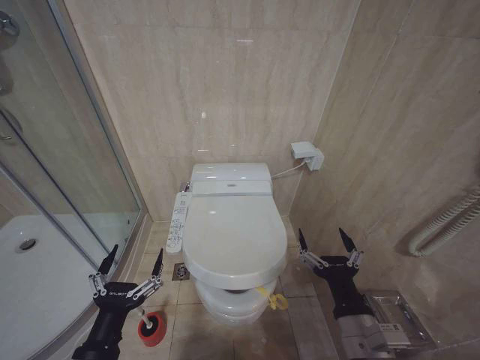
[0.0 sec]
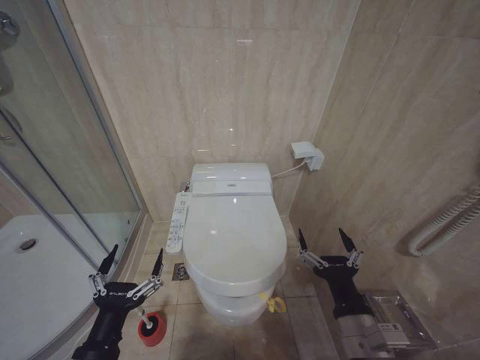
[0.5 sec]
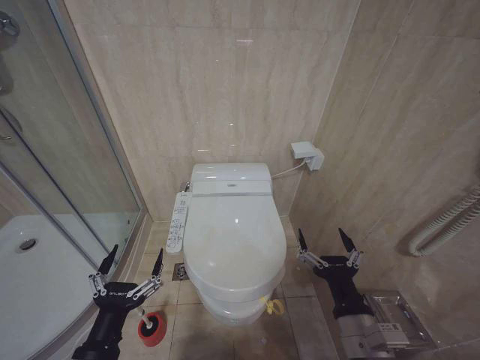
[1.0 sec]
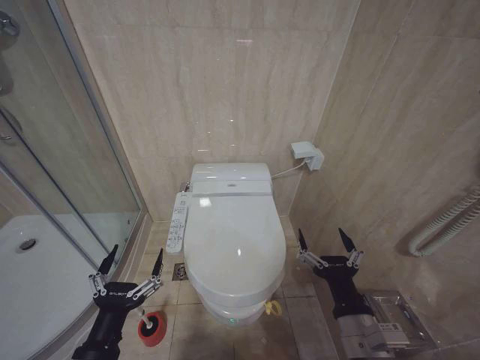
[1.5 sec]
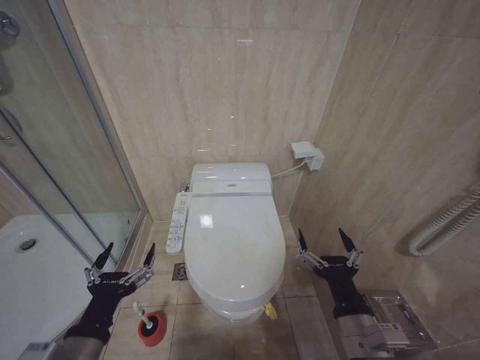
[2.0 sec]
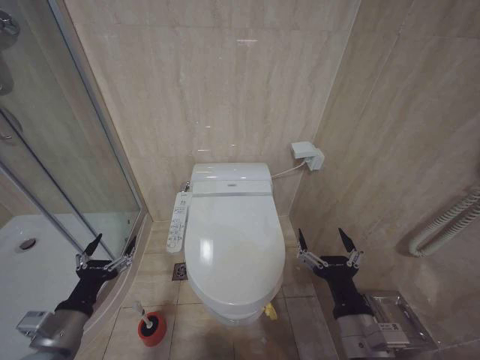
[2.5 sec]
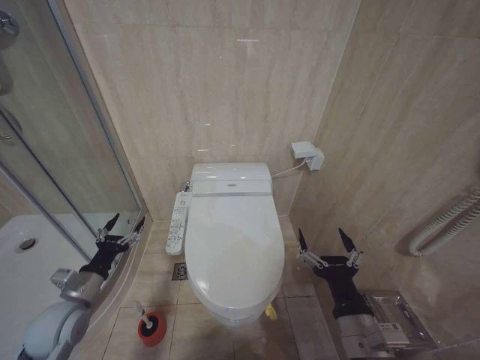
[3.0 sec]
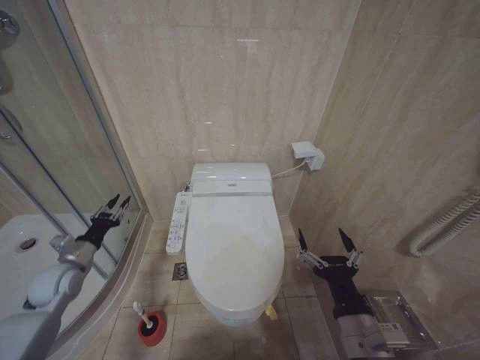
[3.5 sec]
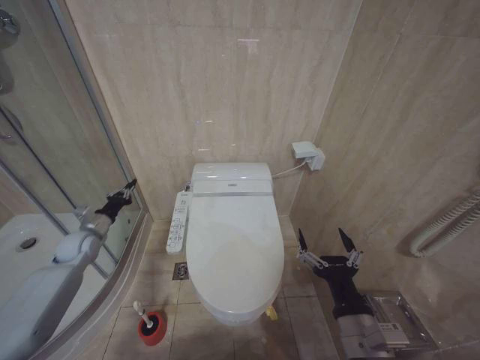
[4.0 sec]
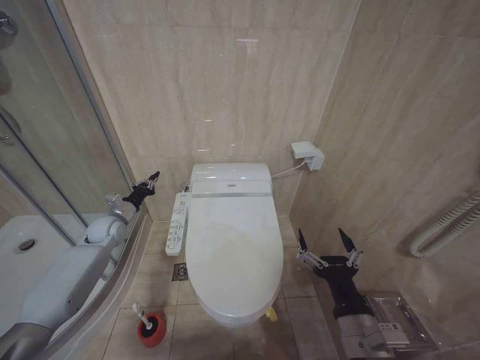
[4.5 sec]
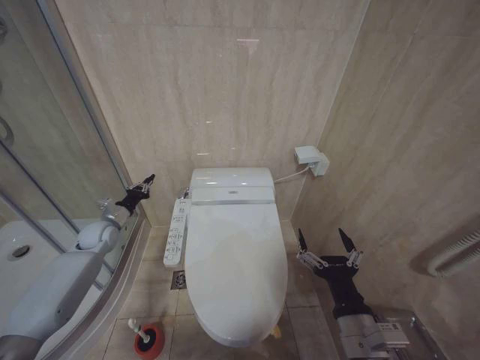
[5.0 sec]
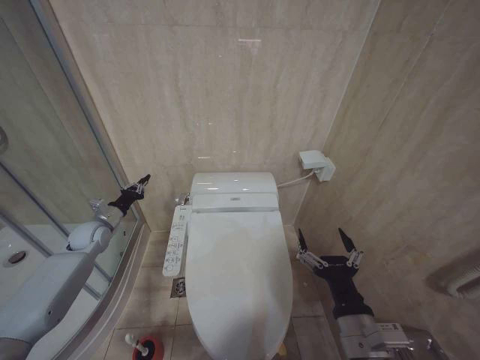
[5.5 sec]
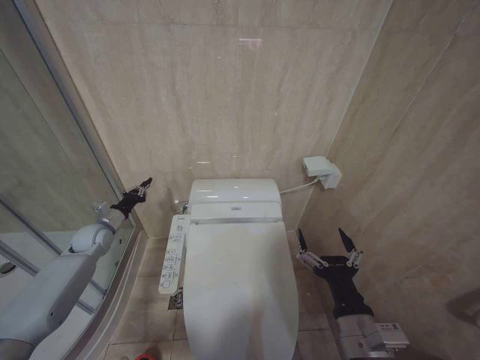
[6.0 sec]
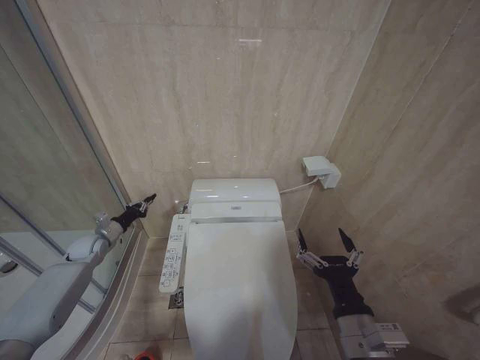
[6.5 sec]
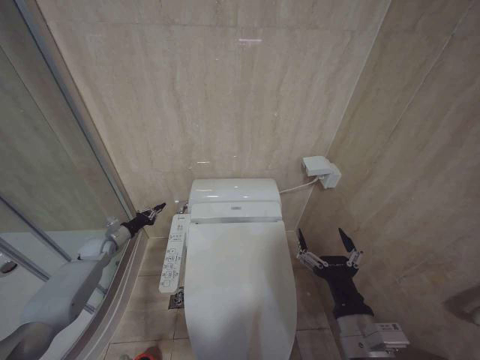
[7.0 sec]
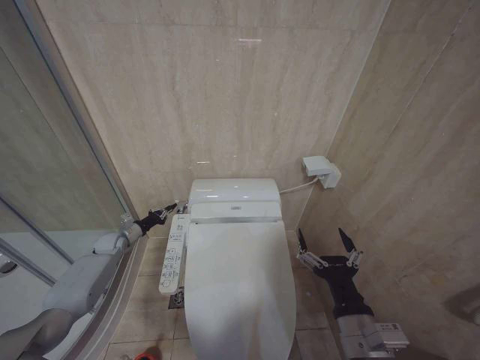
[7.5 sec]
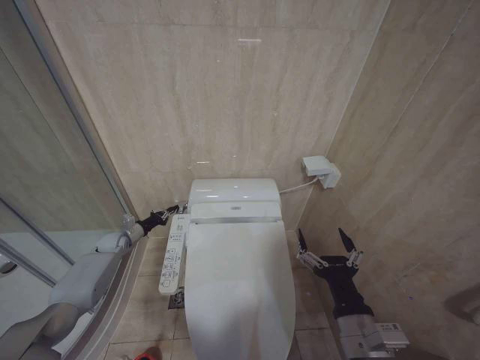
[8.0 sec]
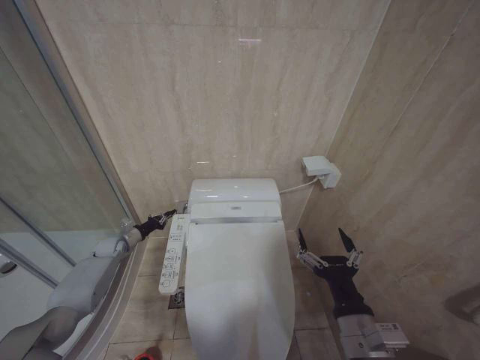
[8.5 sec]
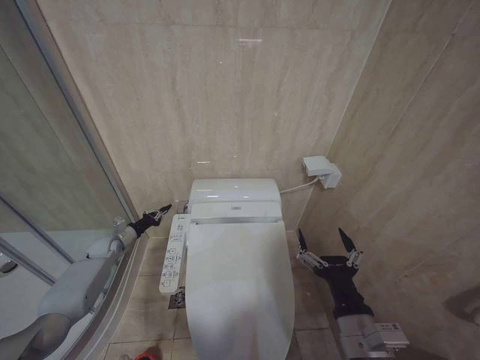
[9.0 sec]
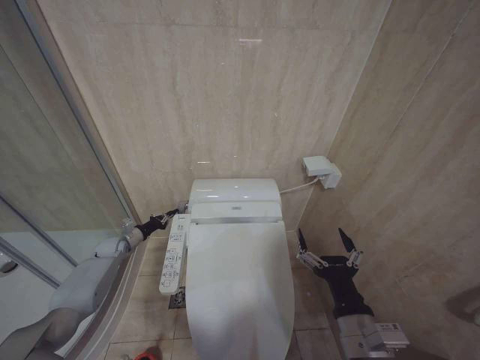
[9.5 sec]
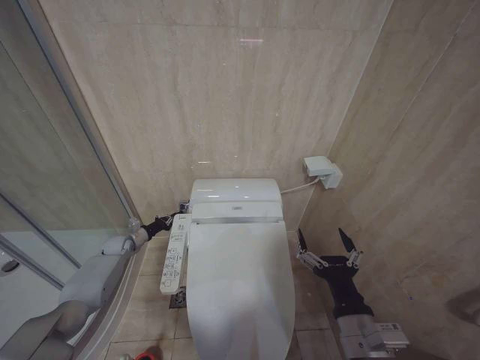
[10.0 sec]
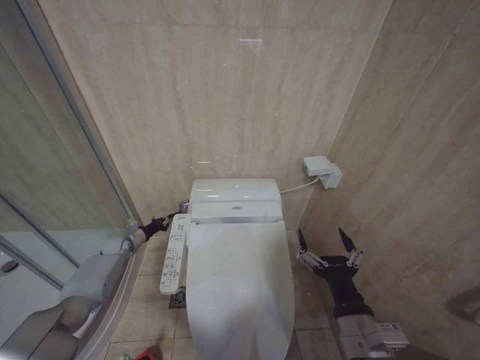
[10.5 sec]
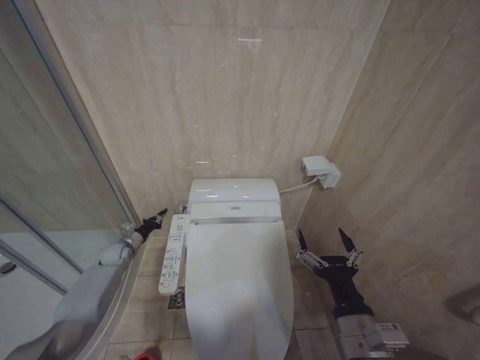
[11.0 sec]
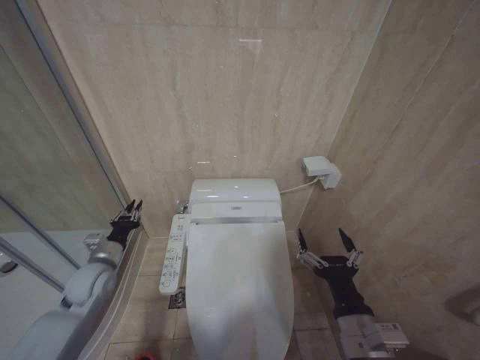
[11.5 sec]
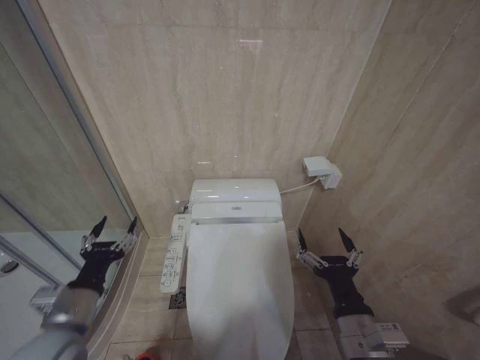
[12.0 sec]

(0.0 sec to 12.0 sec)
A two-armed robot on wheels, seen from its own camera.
Task of the whole recording: Open the toilet lid, clean the toilet bowl with a toilet brush, close the toilet lid, and flush.
0.0 sec - 2.0 sec: The grippers stay close to where they were, moving slightly.
2.0 sec - 4.0 sec: The left gripper moves forward and to the left, about 40 cm, and closes.
6.0 sec - 8.0 sec: The left gripper travels downward by some 10 cm.
8.0 sec - 10.0 sec: There are only small adjustments of the grippers.
10.0 sec - 12.0 sec: The left gripper moves backward and upward, approximately 40 cm, and opens.

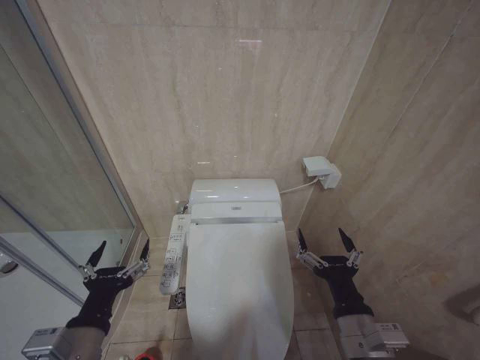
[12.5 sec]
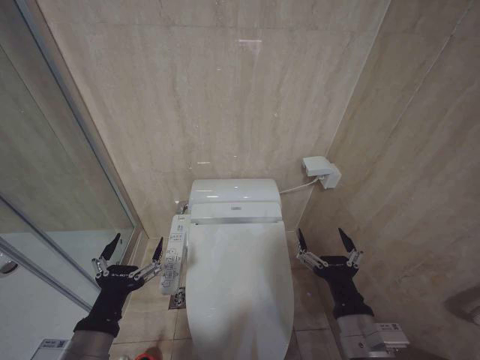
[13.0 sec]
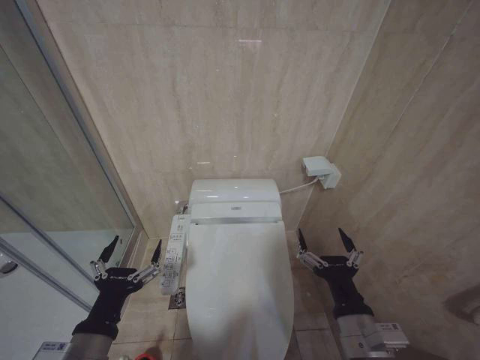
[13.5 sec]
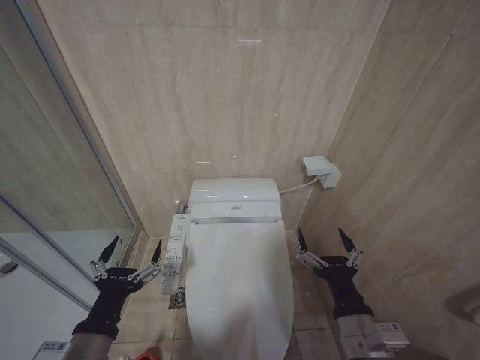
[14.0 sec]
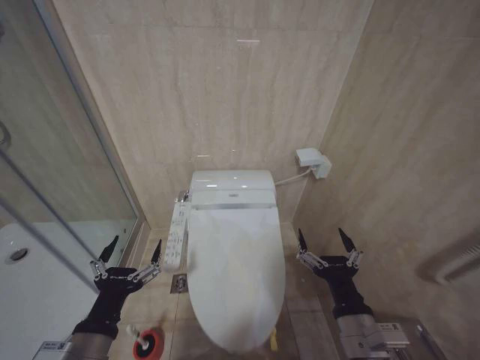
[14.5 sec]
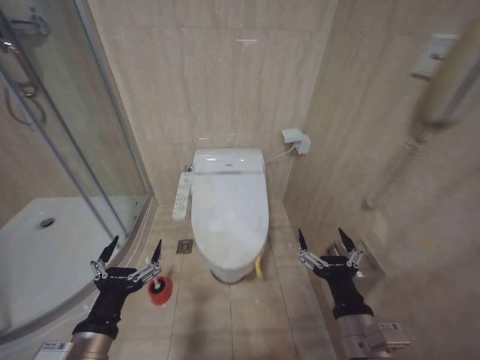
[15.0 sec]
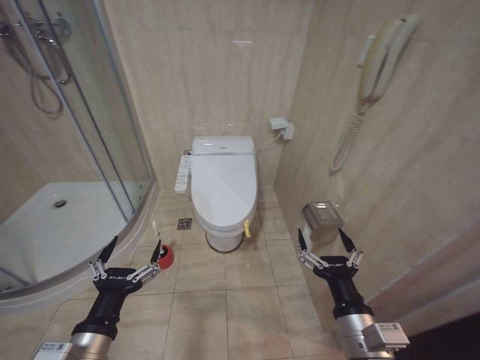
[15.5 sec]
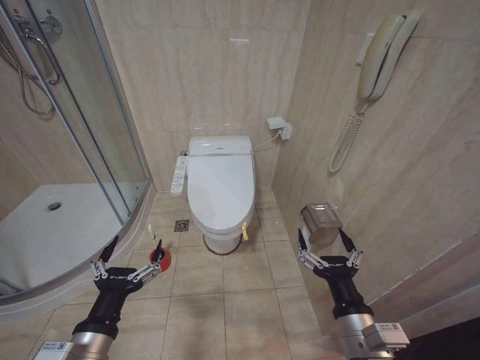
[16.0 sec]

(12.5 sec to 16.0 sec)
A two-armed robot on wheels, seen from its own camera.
Task of the whole recording: Open the toilet lid, clean the toilet bowl with a toilet brush, close the toilet lid, and flush.
12.5 sec - 14.5 sec: The grippers move only a little.
